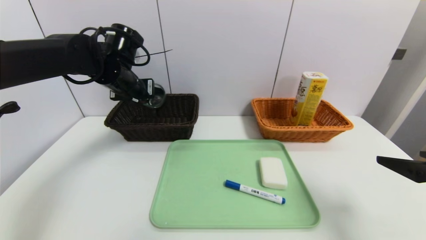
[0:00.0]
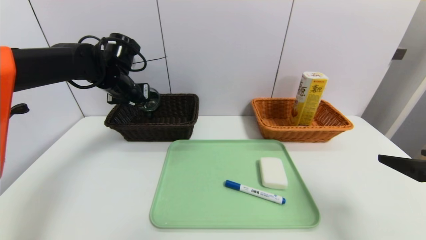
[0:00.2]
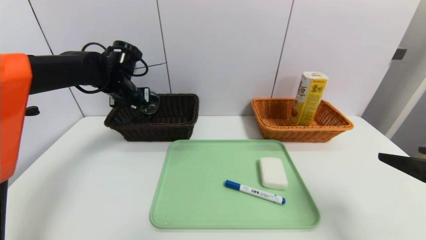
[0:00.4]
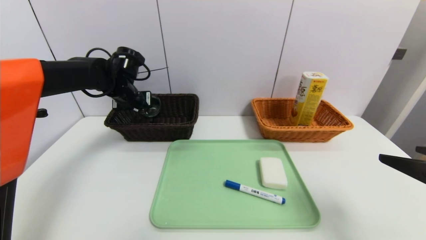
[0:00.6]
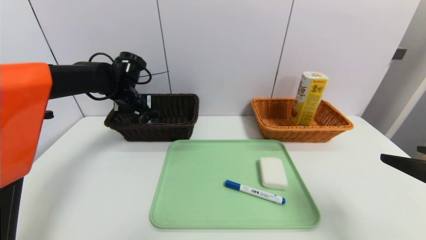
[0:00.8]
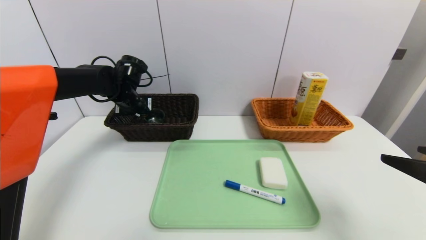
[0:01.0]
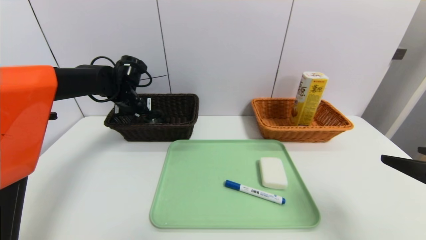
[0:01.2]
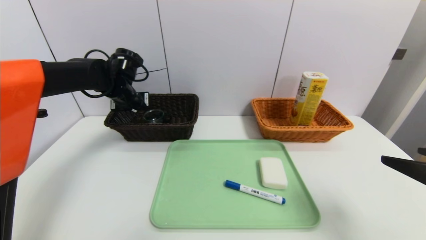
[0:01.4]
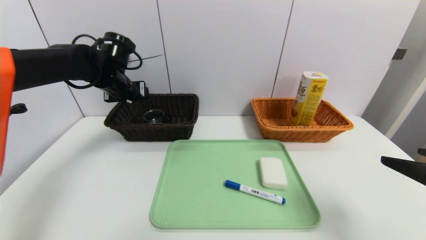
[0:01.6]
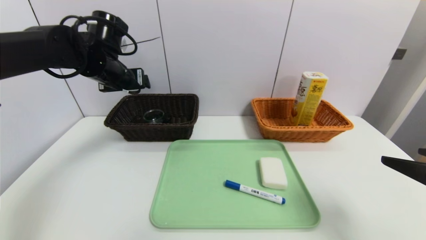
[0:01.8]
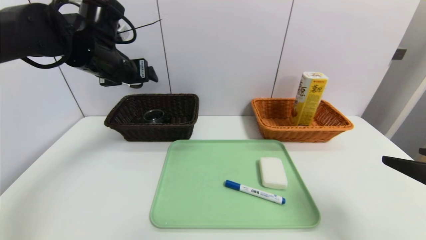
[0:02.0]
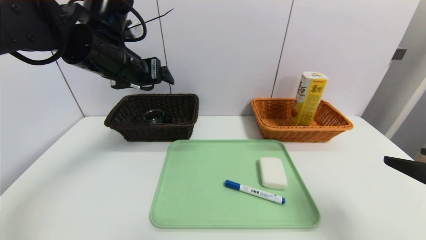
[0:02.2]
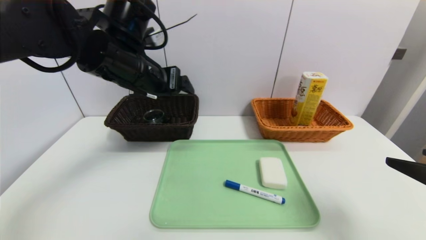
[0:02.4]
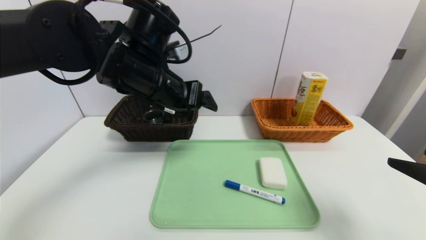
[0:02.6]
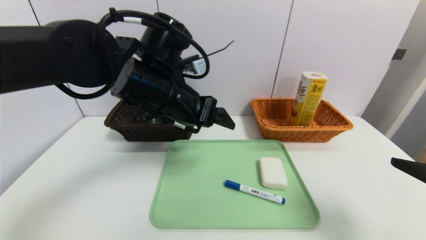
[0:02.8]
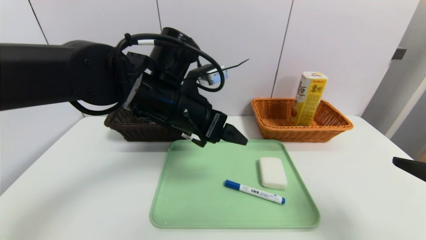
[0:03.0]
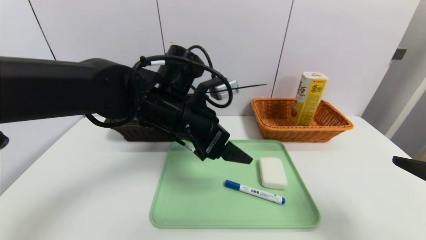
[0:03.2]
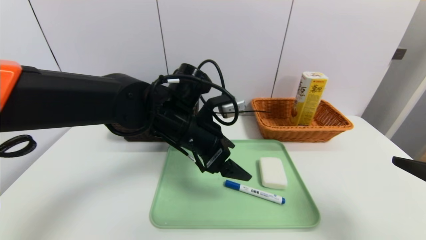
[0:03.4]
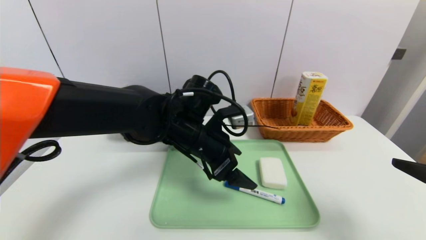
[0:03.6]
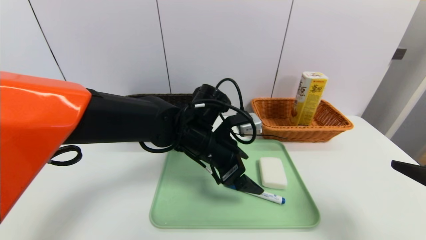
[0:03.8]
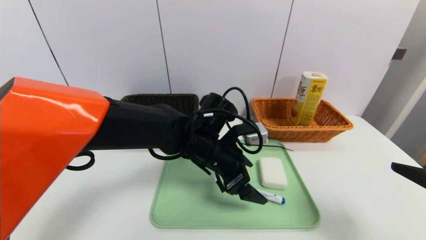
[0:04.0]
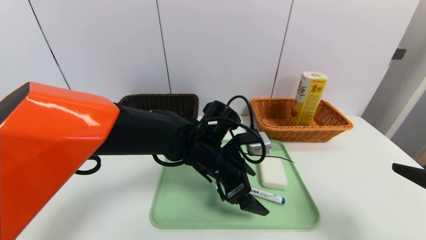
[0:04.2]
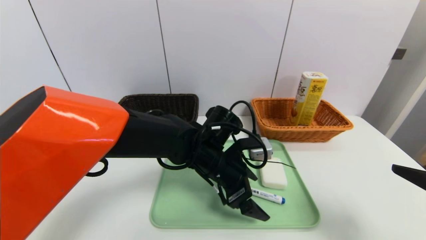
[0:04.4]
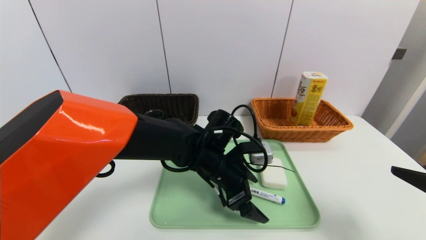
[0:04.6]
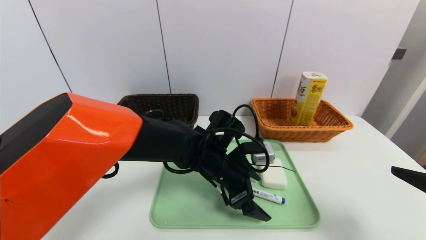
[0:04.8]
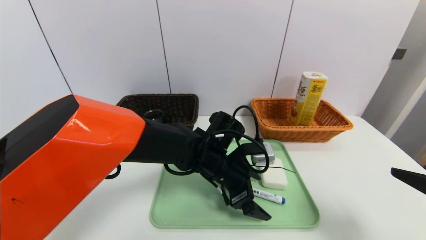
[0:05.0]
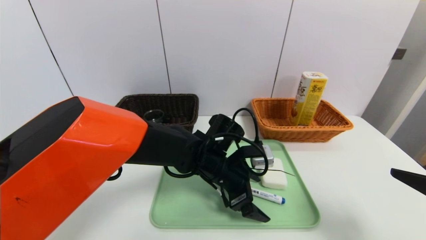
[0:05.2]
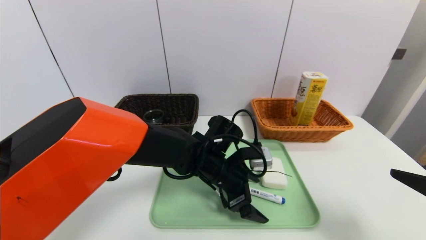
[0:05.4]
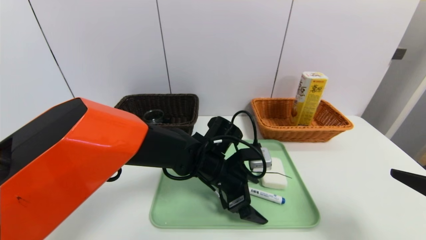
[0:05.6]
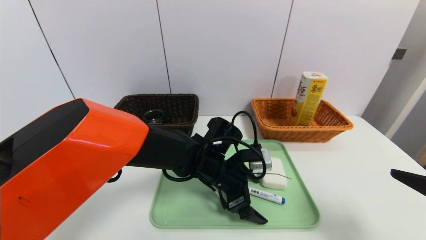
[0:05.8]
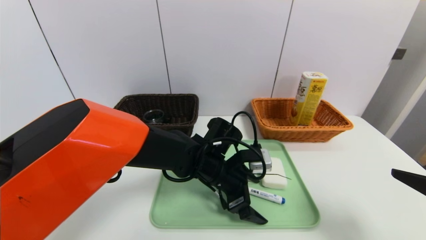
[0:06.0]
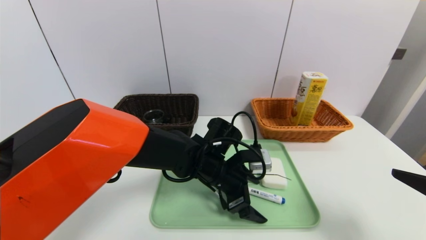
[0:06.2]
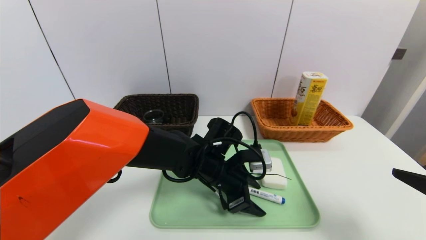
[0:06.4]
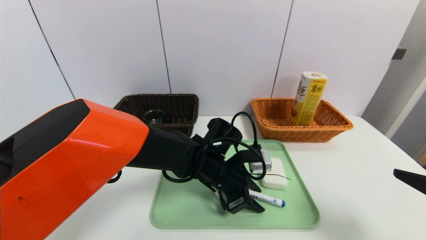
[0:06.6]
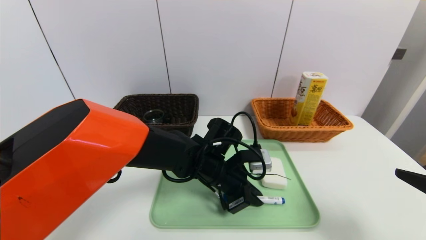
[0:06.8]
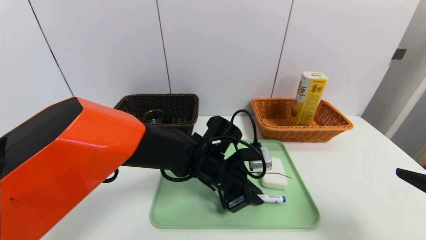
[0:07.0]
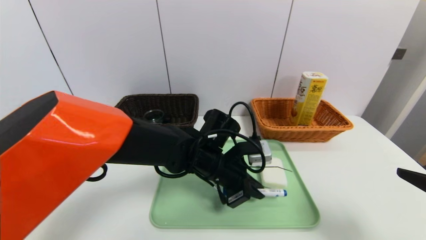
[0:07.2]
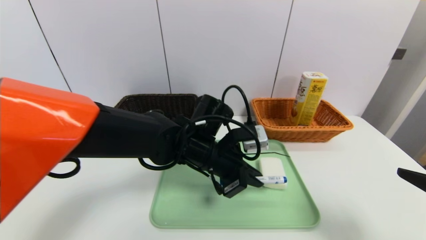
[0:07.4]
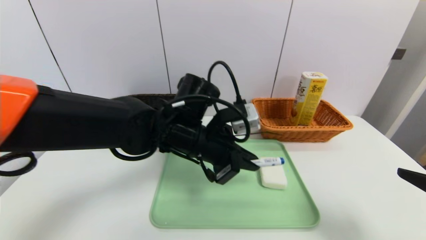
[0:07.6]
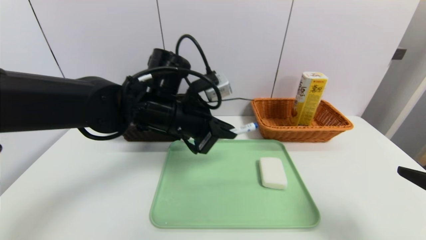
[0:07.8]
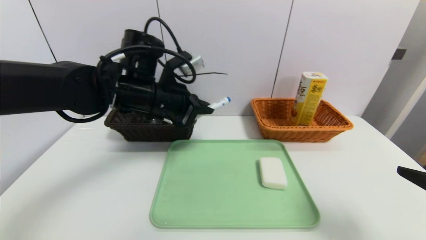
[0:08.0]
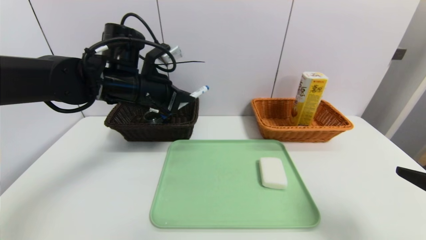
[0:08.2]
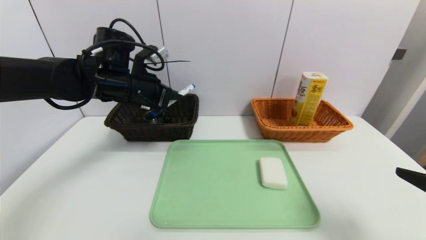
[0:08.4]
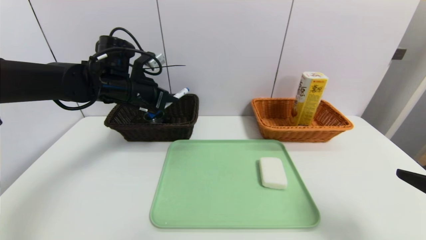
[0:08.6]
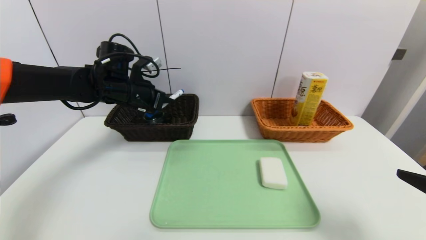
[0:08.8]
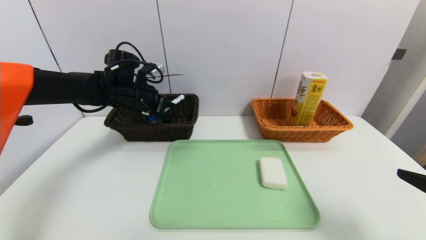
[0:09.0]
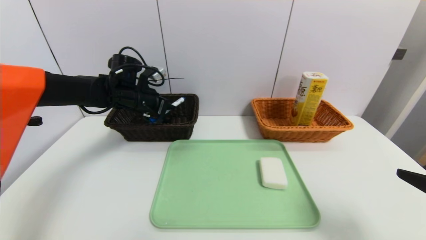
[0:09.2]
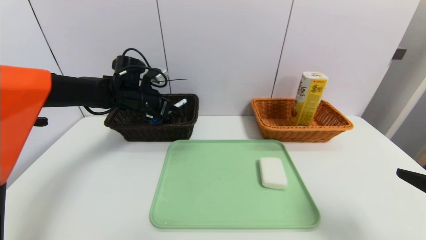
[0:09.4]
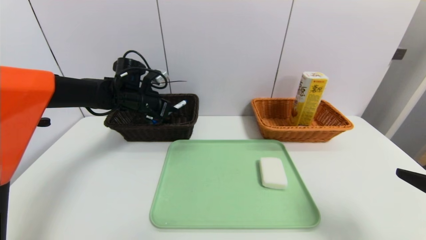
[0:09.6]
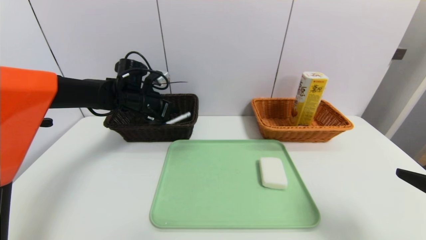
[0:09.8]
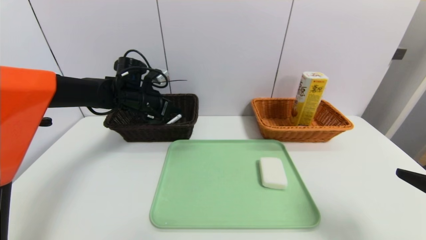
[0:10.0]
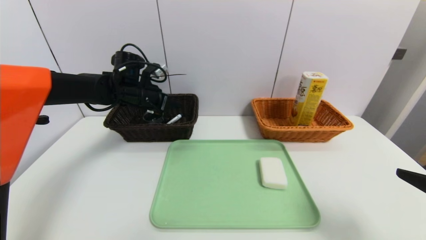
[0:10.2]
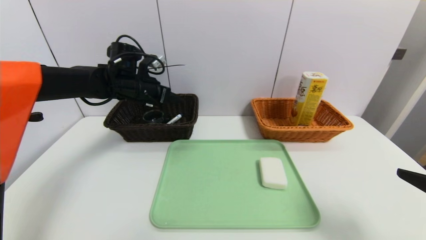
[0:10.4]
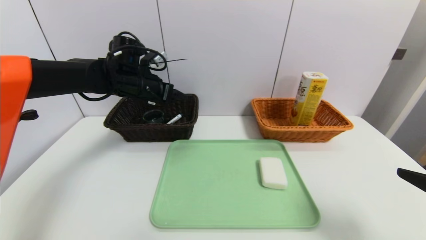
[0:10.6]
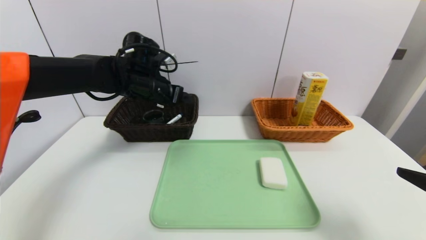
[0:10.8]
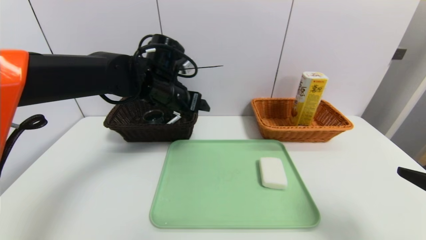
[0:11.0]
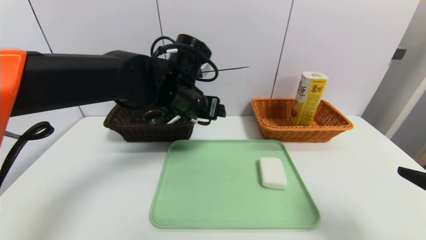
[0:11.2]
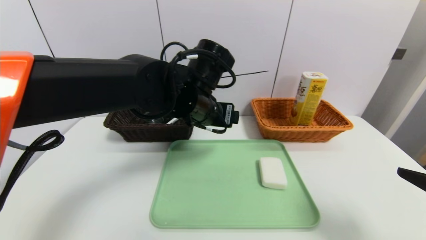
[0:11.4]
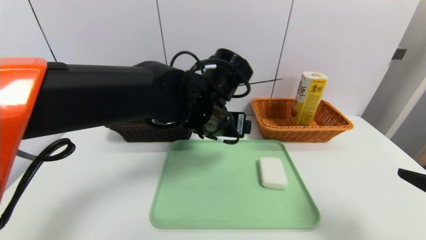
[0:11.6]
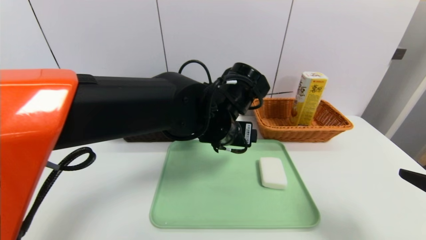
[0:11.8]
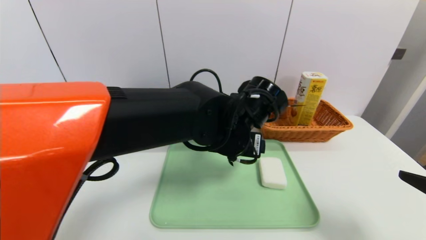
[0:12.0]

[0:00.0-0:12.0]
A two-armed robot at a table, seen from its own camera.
Task of the whole recording: place the food in the right basket with the right gripper, and place the non food items in the left basket with the left gripper.
Step, 0:01.6 to 0:10.0: Grasp the blue marker and put it in the left basket.
0:00.0 to 0:01.6: The left gripper opens.
0:01.6 to 0:03.0: The left gripper goes roughly 20 cm to the right and backward.
0:03.0 to 0:04.4: The left gripper goes roughly 15 cm downward and to the right.
0:04.4 to 0:06.0: The grippers make only small movements.
0:06.0 to 0:07.6: The left gripper goes about 10 cm upward, and closes up.
0:07.6 to 0:09.0: The left gripper heads to the left and forward, covering roughly 20 cm.
0:09.0 to 0:10.4: The left gripper opens its fingers.
0:10.4 to 0:12.0: The left gripper is displaced to the right and backward by roughly 30 cm.

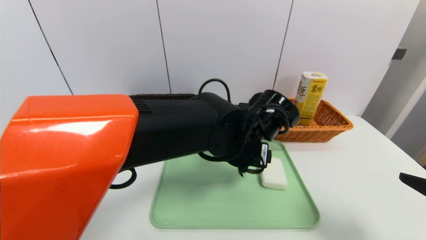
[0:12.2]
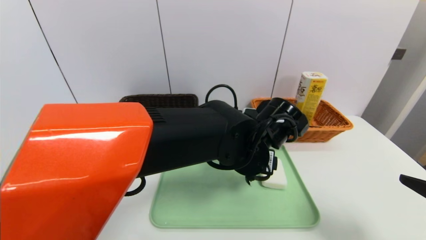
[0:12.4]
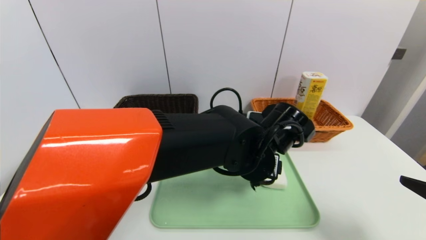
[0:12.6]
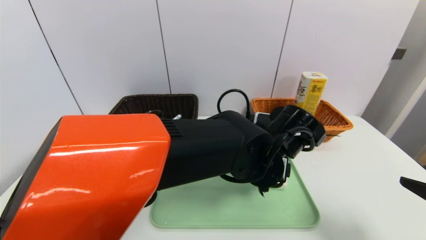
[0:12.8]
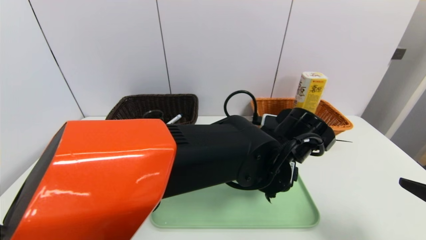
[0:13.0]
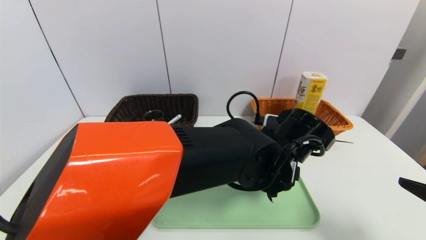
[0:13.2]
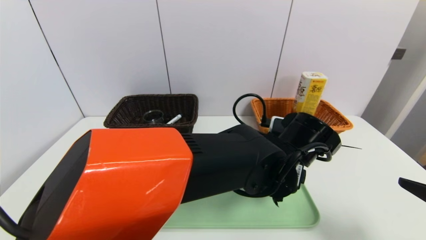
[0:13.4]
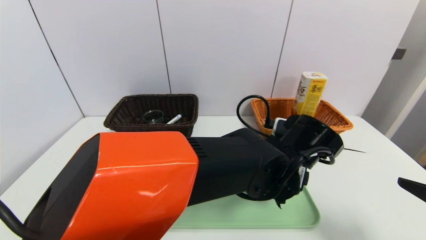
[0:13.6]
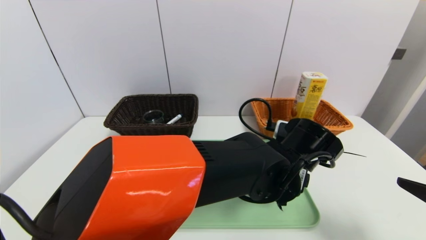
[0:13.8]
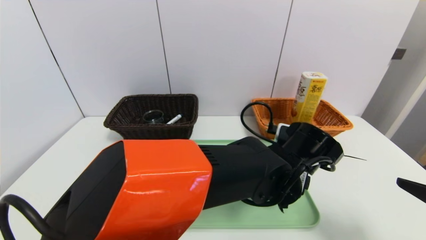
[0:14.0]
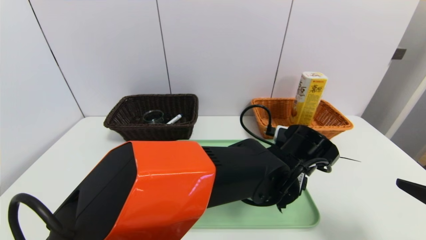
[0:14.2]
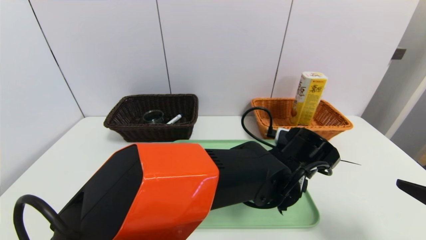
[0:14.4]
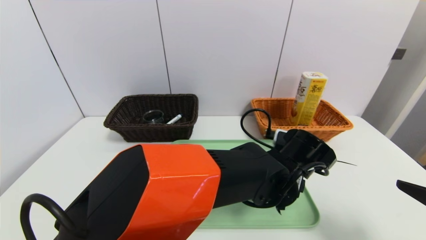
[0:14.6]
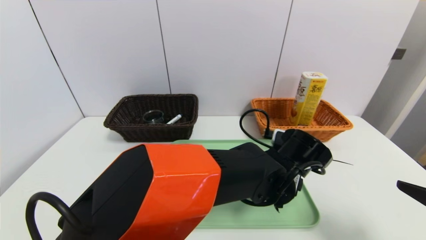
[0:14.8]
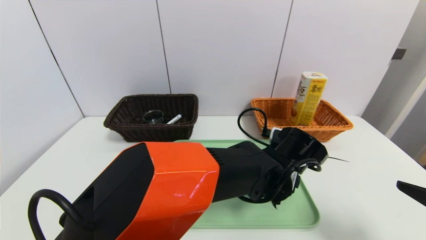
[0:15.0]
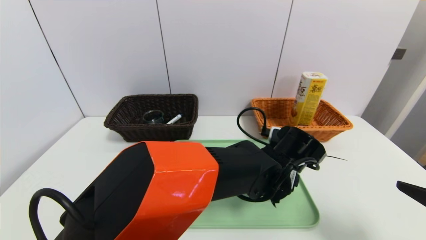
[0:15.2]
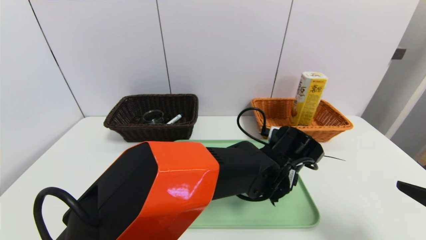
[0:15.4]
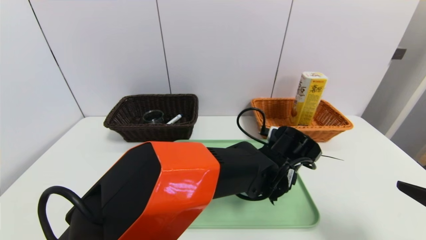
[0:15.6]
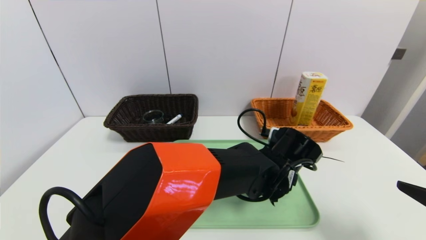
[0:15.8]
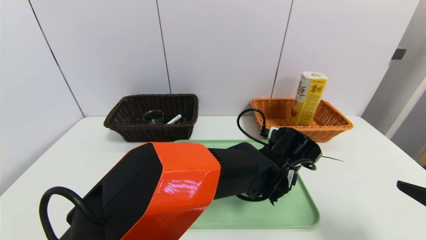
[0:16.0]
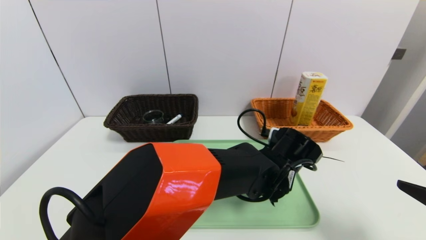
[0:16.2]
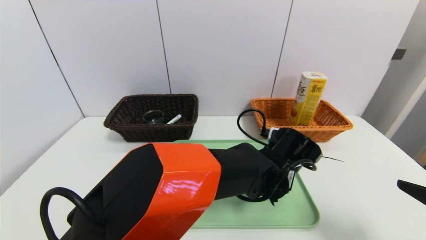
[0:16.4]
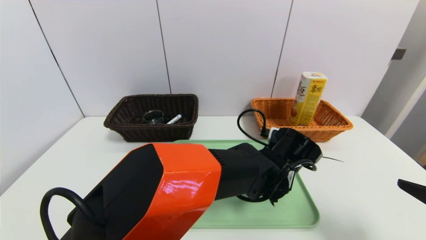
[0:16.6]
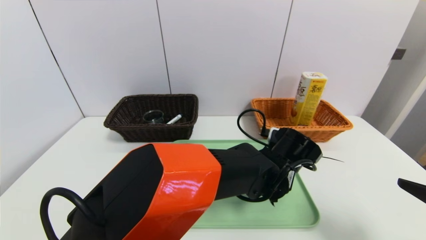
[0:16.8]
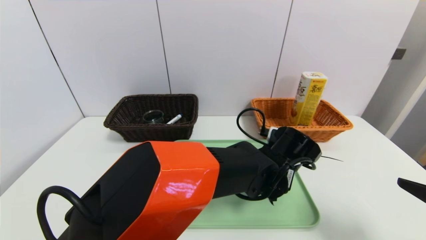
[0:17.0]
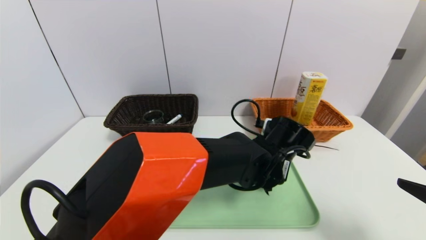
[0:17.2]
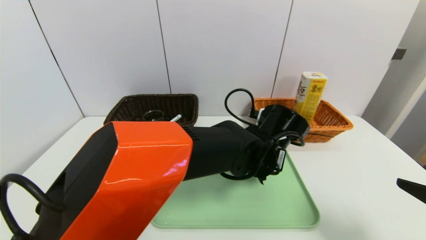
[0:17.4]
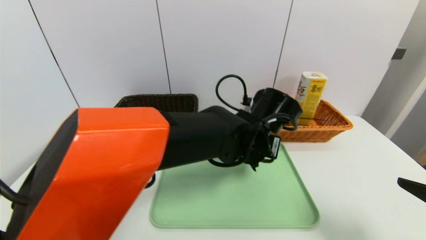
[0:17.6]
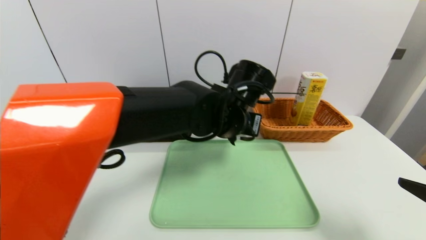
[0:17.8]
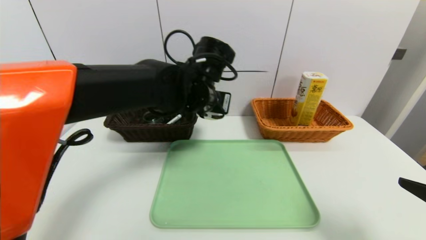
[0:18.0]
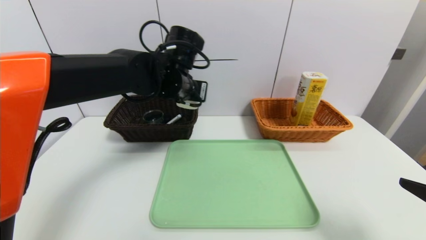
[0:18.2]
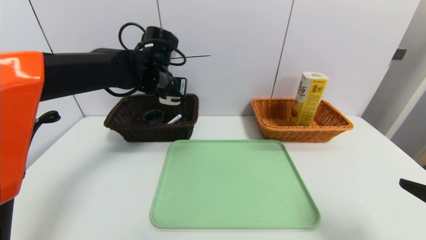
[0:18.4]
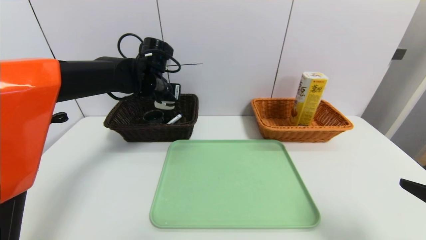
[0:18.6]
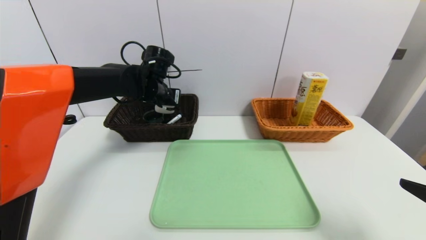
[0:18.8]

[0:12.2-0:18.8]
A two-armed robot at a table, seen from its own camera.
Task of the whole recording: place the food in the right basket with the right gripper, and place the non food items in the left basket with the left gripper.
0:12.2 to 0:13.8: The left gripper travels to the right by approximately 5 cm.
0:13.8 to 0:15.4: The grippers make only small movements.
0:15.4 to 0:17.2: The left gripper closes.
0:17.2 to 0:18.8: The left gripper shifts some 30 cm to the left and forward.
